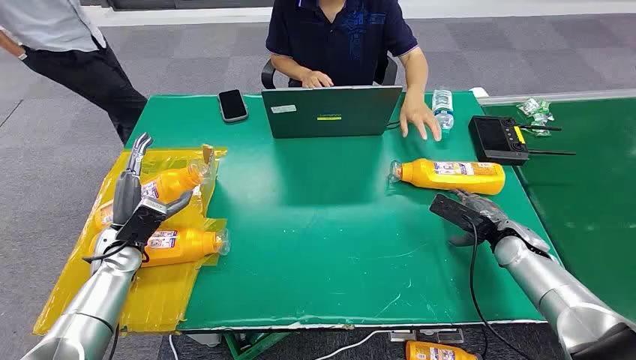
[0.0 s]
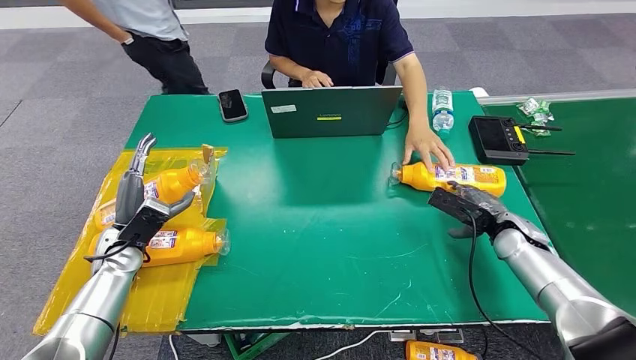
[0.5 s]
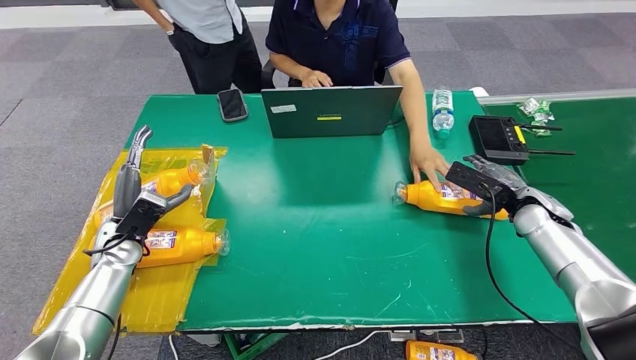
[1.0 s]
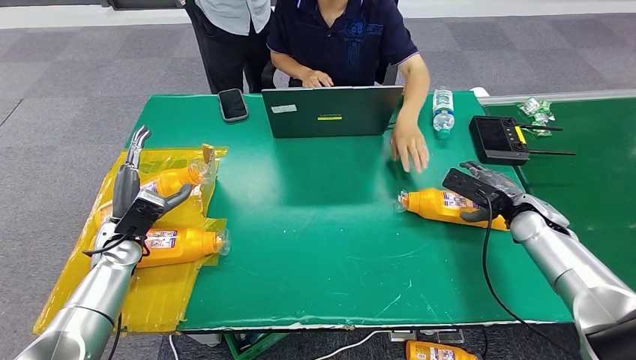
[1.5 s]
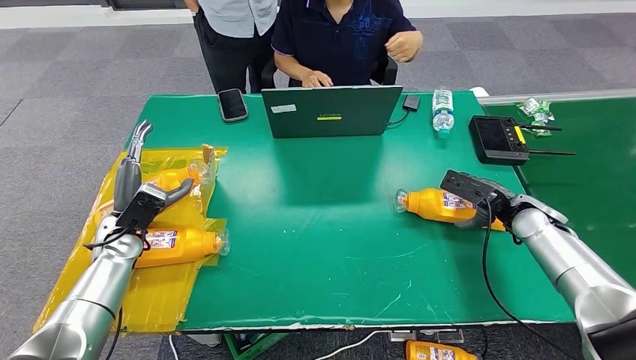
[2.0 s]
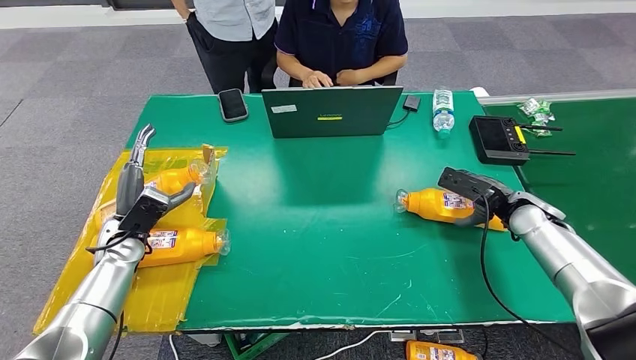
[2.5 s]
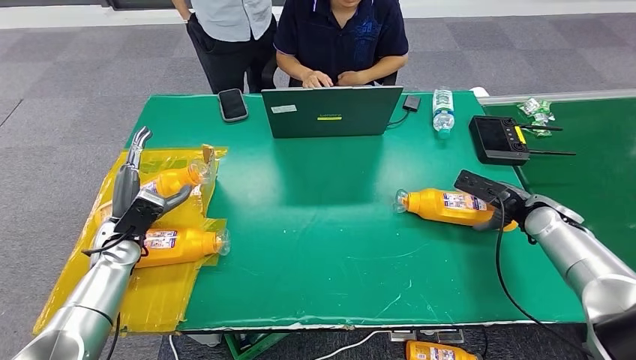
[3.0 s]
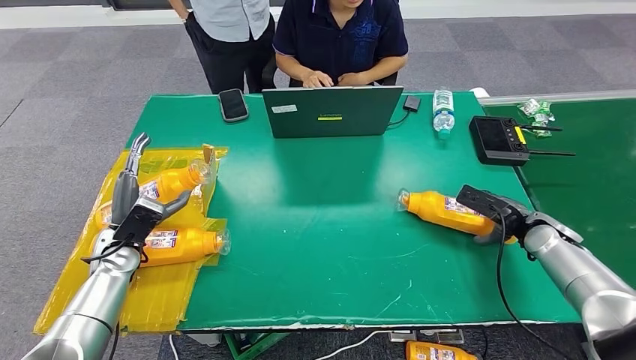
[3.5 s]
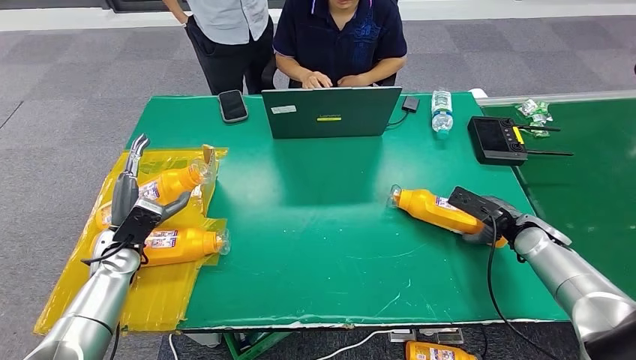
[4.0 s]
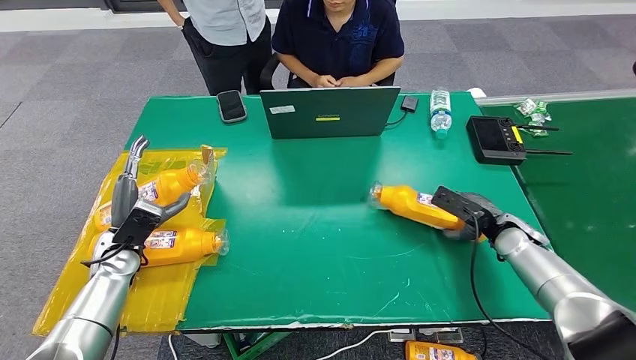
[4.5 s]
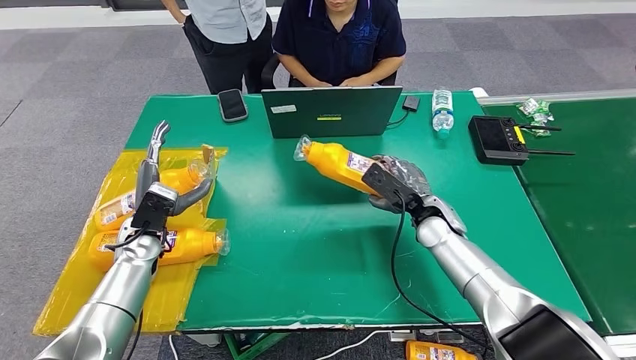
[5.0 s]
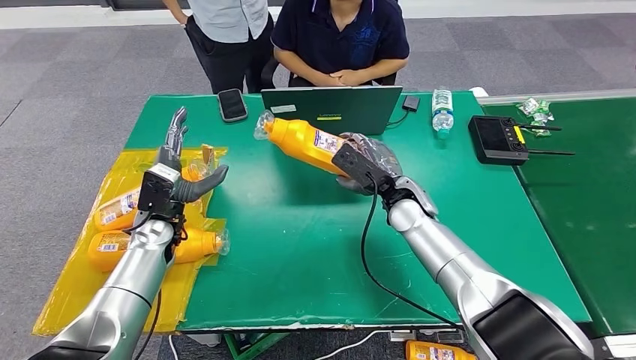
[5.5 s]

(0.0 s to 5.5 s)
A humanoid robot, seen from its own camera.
Step, 0.0 s - 5.5 s: Pick up the bottle from the table.
2.0 s - 3.5 s: The hands move only a little.

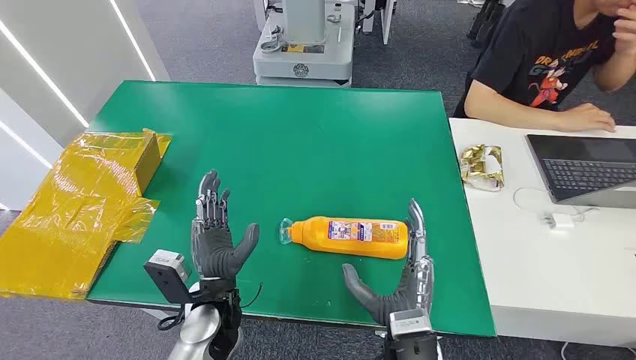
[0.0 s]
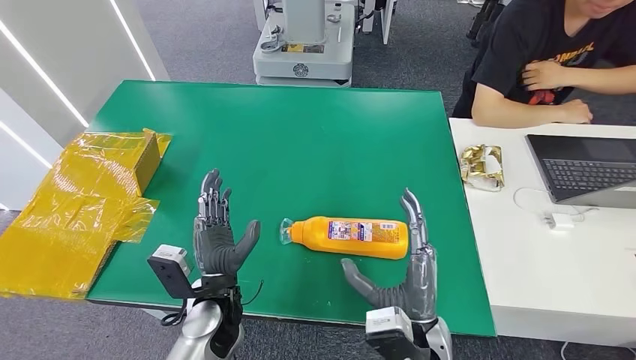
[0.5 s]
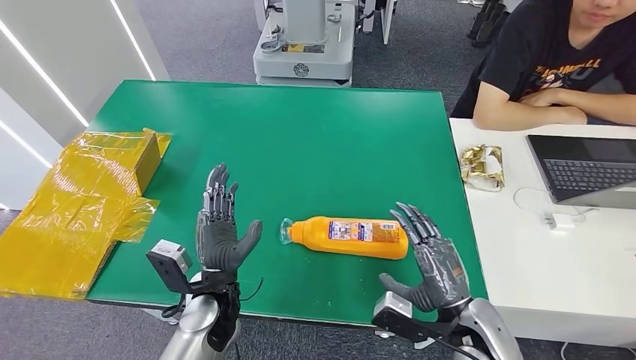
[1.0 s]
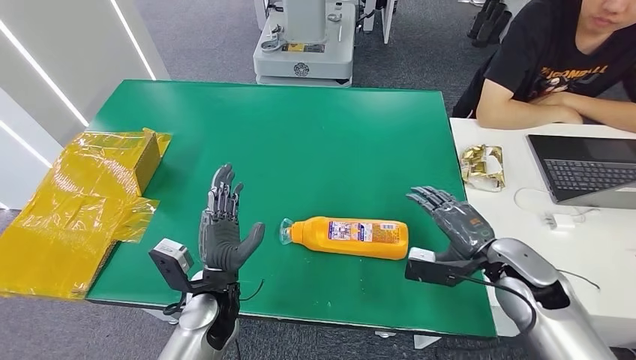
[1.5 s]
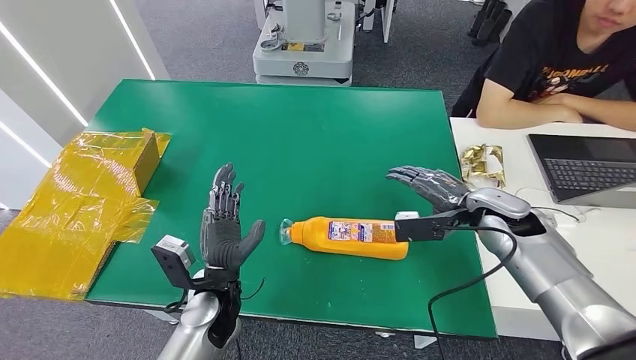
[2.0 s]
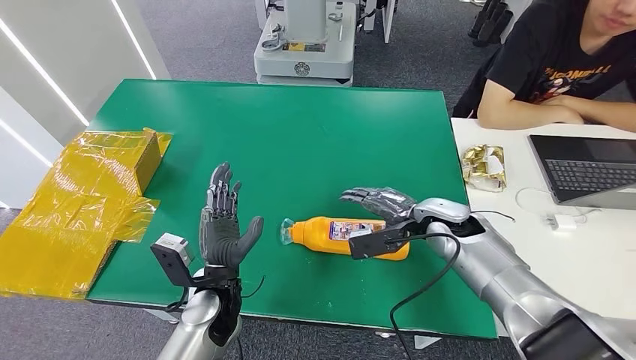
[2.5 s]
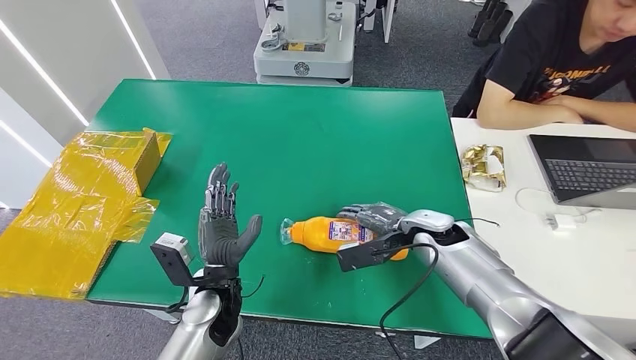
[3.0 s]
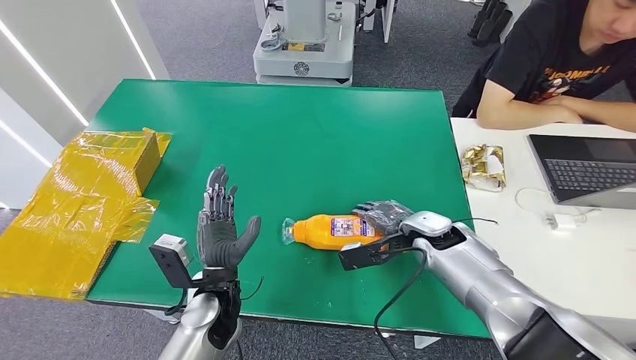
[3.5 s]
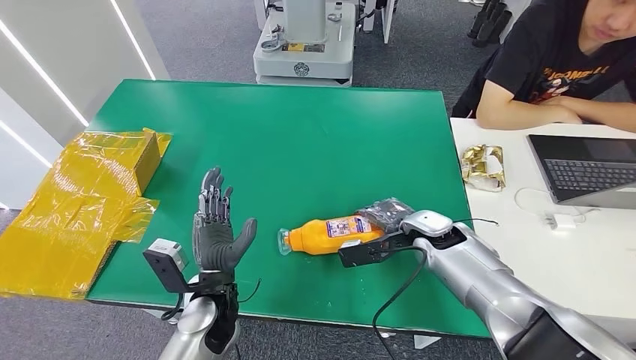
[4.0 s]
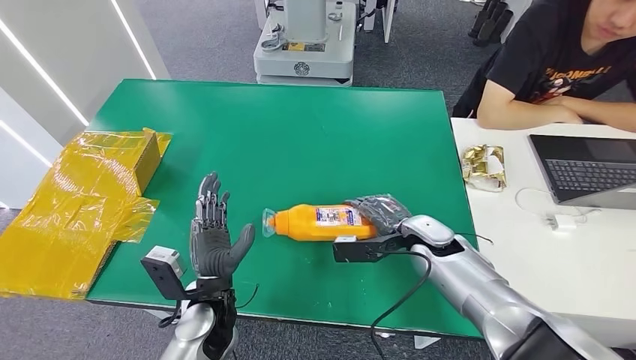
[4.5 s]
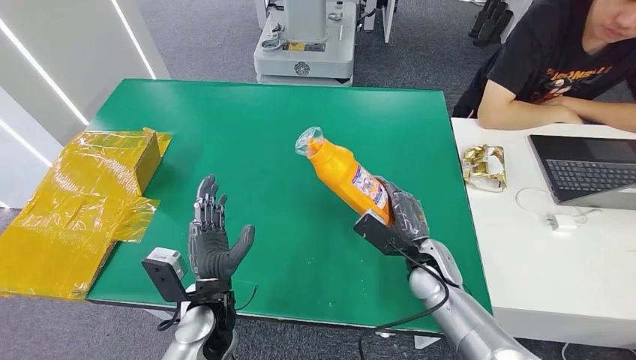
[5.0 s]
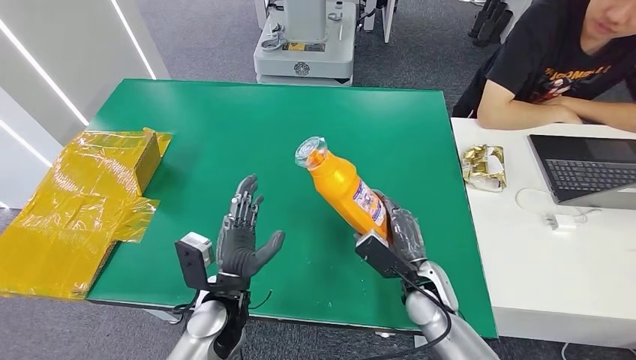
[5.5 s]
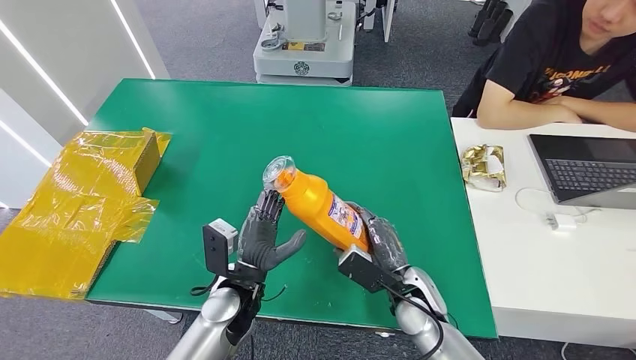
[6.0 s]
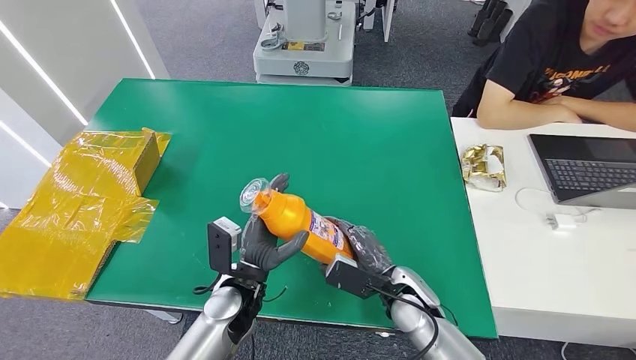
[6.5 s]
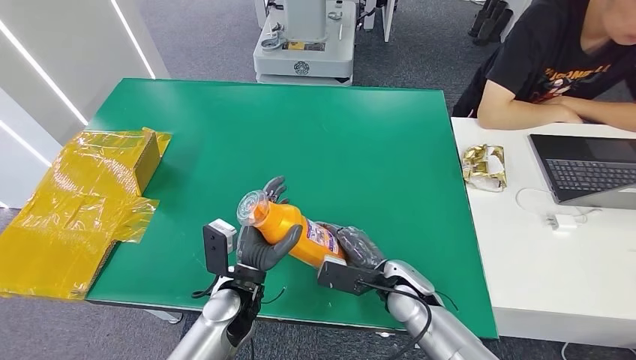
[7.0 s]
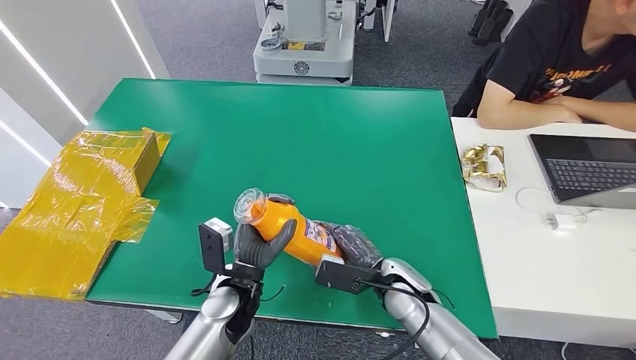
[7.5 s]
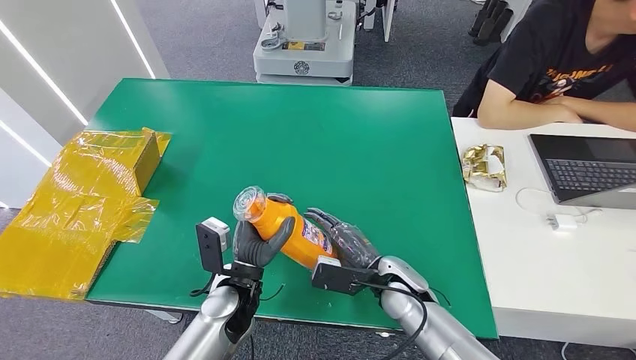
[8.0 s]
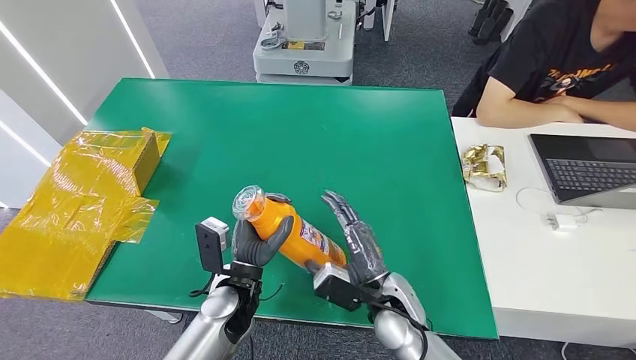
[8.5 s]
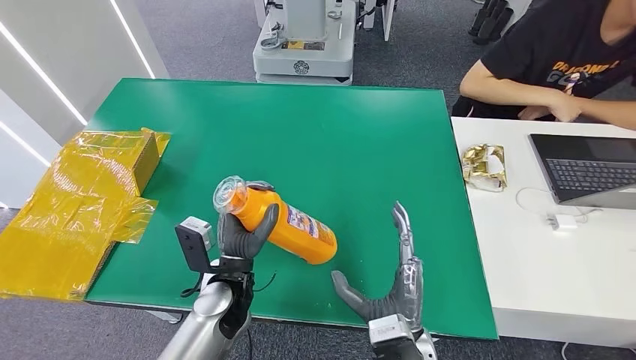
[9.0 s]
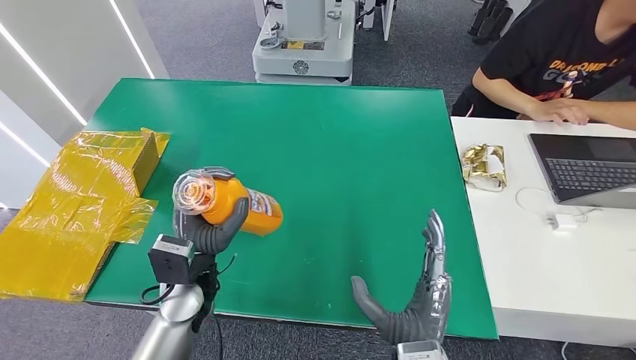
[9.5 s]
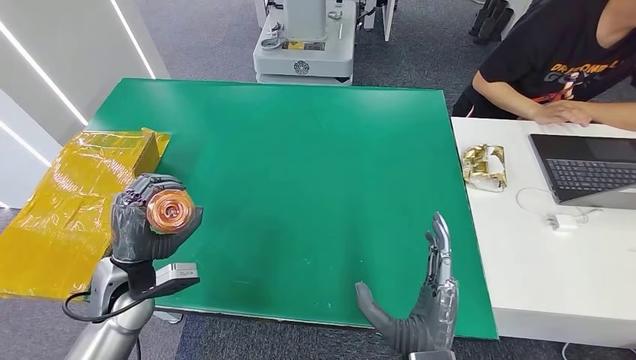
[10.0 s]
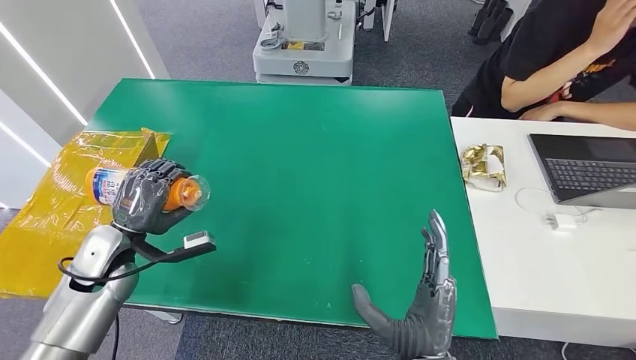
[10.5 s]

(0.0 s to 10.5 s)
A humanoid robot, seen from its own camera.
Step, 0.0 s - 5.0 s: Pick up the bottle from the table.
2.0 s - 4.0 s: The right hand is displaced to the left and downward by roughly 10 cm.
4.0 s - 6.5 s: The right hand goes about 15 cm backward, downward and to the left.
6.5 s - 8.5 s: The hands move only a little.
8.5 s - 10.5 s: The left hand travels to the left by roughly 20 cm. Meanwhile the right hand shifts approximately 10 cm backward.

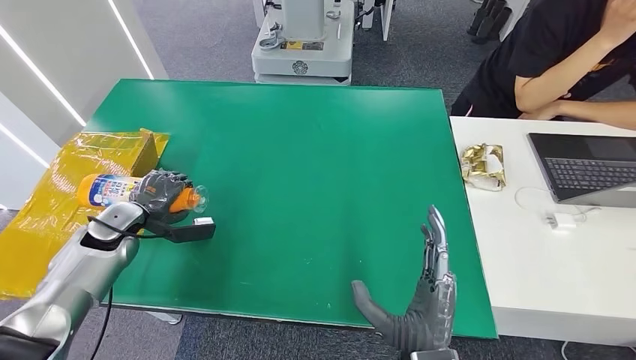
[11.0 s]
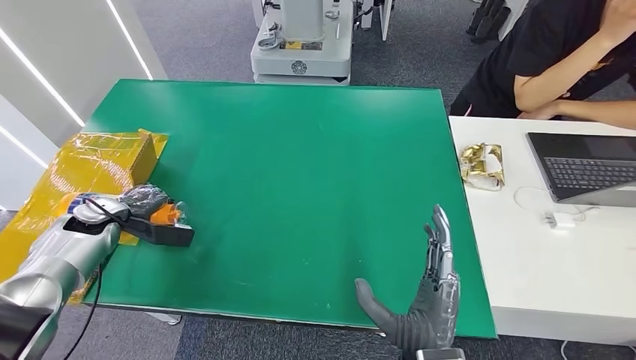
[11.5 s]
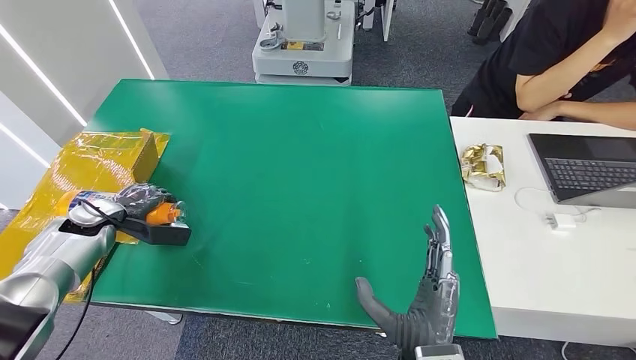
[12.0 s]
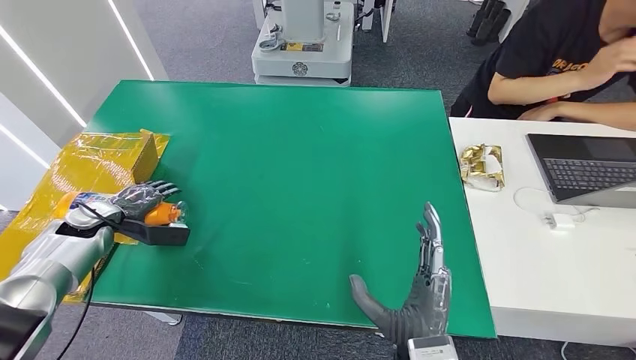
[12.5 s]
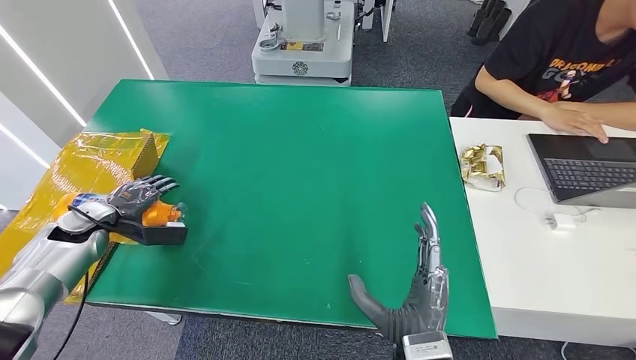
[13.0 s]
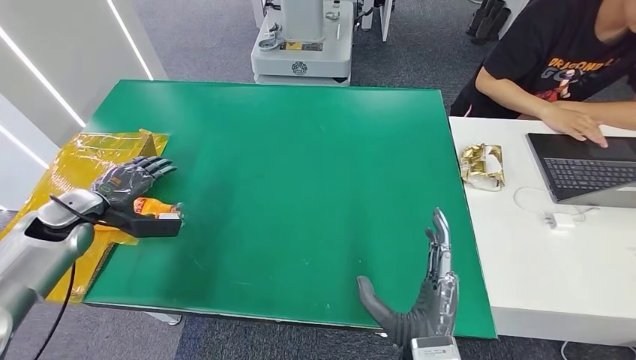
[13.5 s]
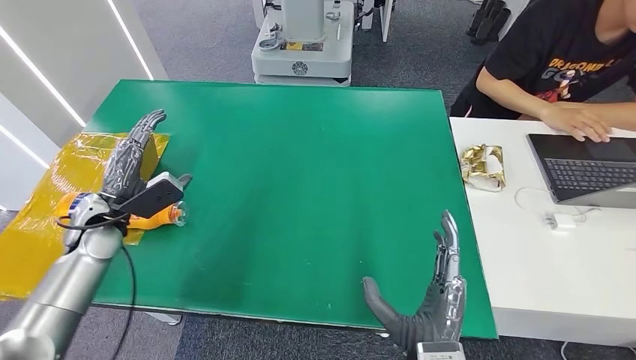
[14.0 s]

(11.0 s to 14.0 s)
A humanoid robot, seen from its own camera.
Step, 11.0 s - 14.0 s: Turn the bottle to the front side.
11.0 s - 12.5 s: The left hand travels to the left by about 5 cm.
12.5 s - 14.0 s: The left hand travels to the right and upward by roughly 10 cm.
